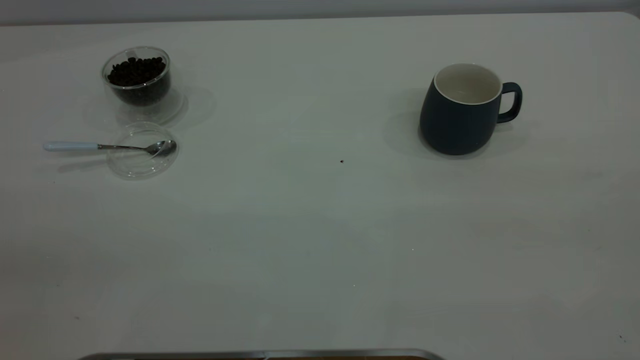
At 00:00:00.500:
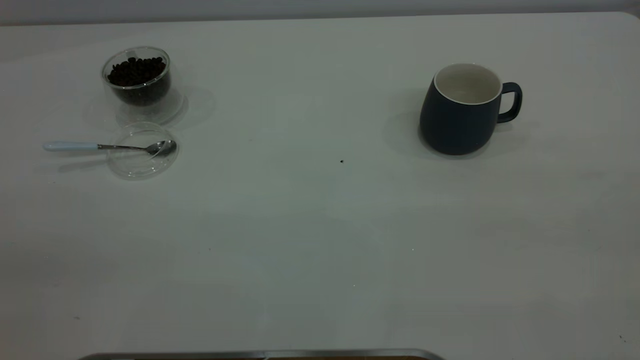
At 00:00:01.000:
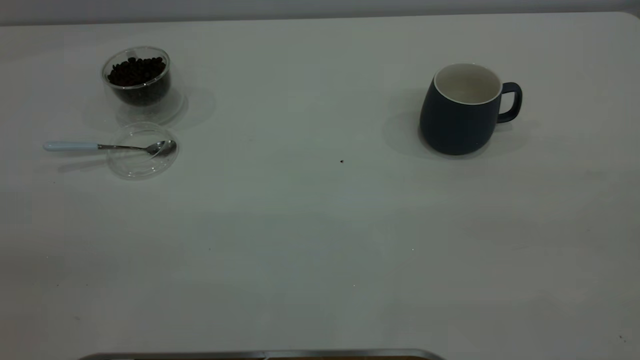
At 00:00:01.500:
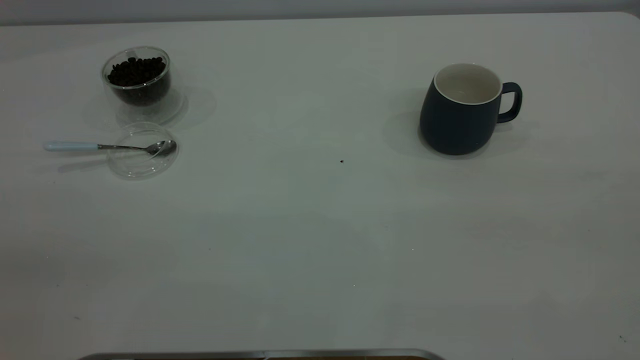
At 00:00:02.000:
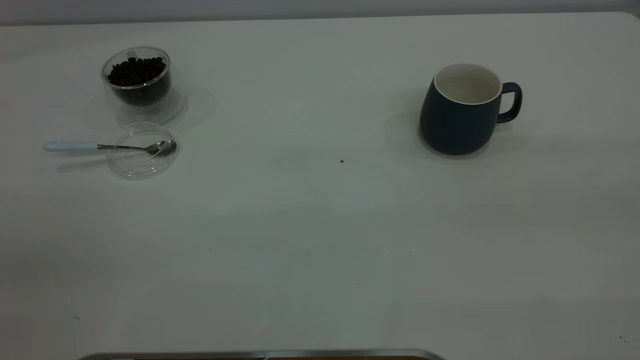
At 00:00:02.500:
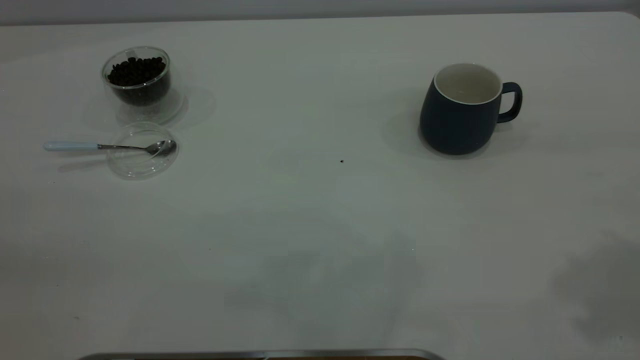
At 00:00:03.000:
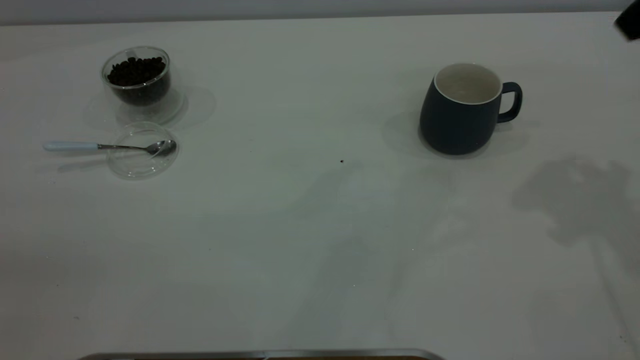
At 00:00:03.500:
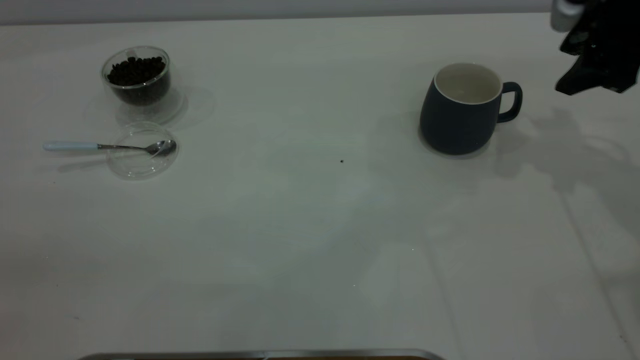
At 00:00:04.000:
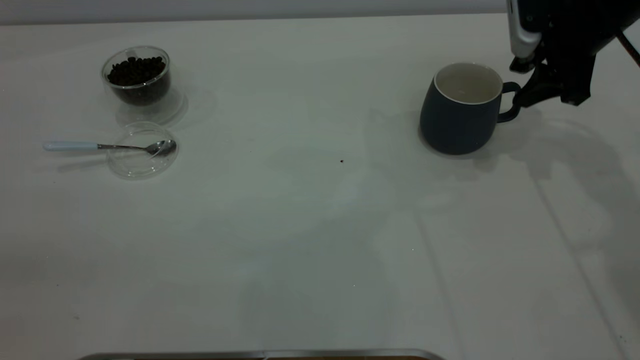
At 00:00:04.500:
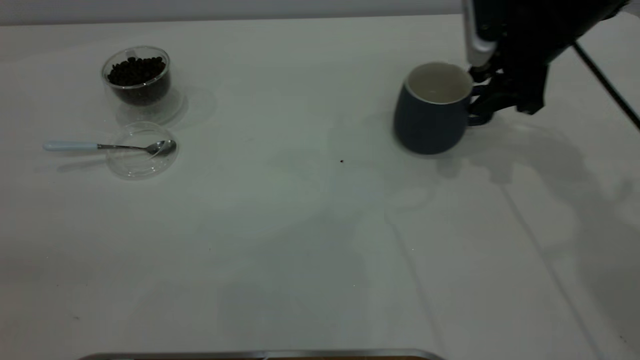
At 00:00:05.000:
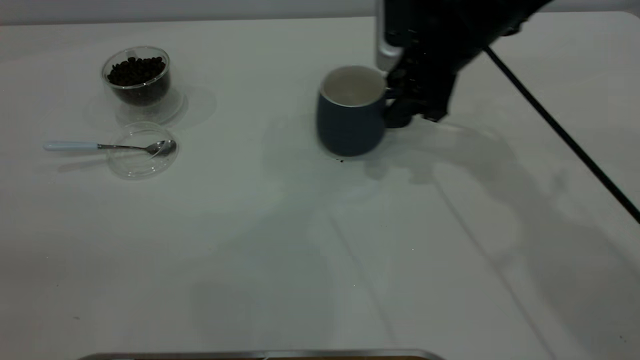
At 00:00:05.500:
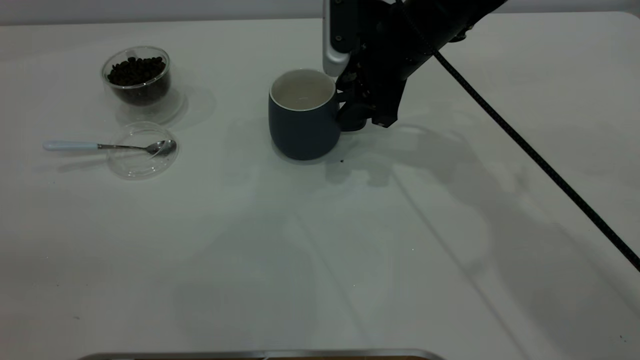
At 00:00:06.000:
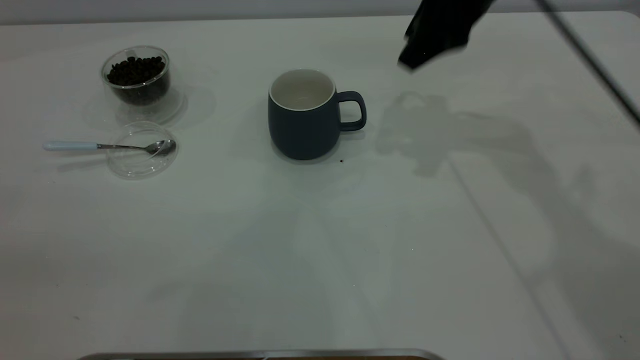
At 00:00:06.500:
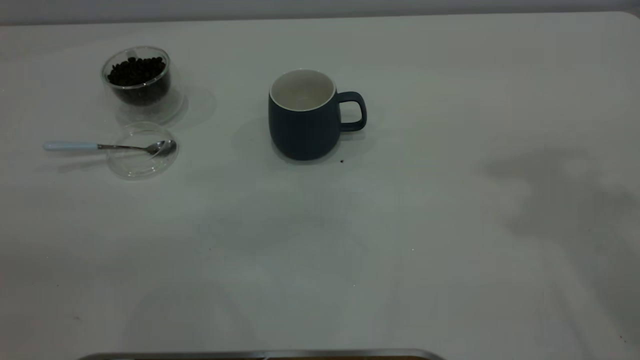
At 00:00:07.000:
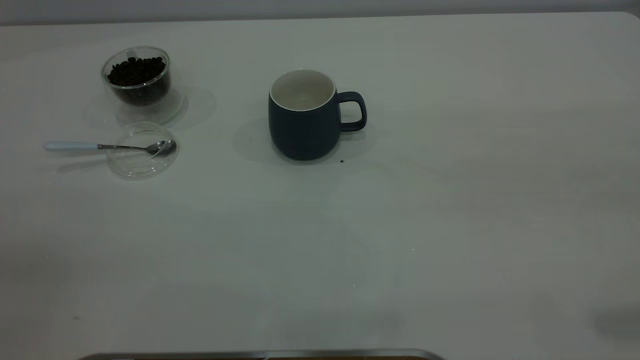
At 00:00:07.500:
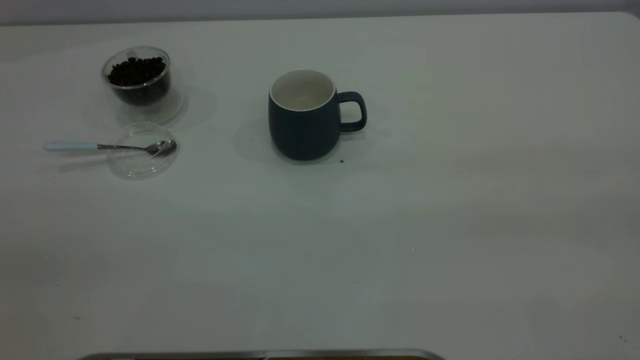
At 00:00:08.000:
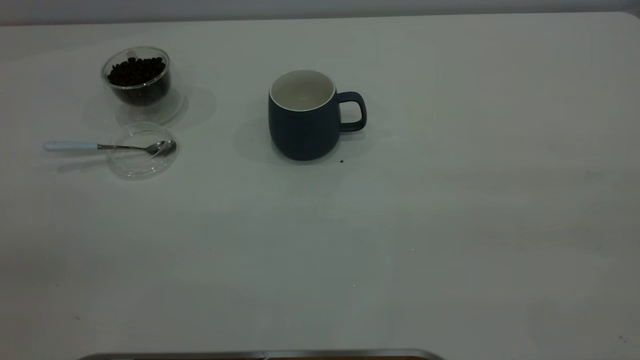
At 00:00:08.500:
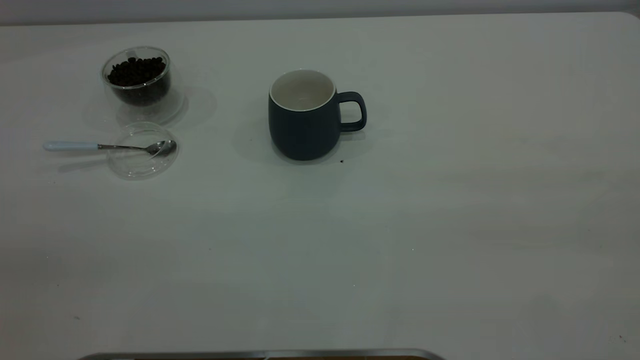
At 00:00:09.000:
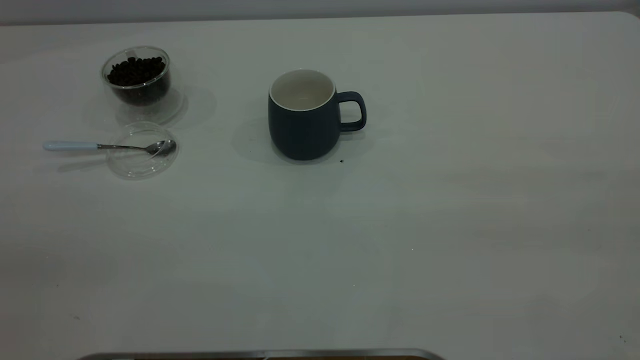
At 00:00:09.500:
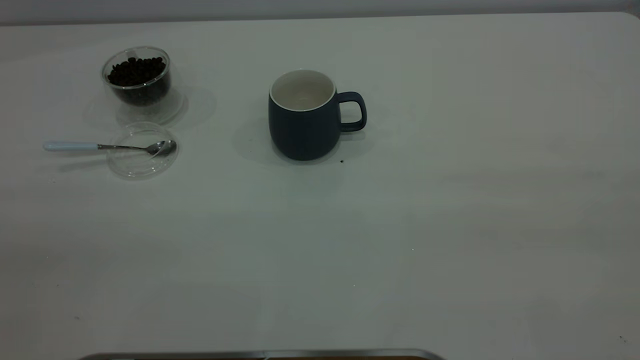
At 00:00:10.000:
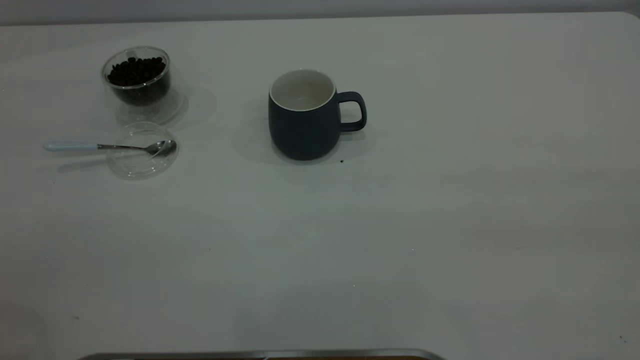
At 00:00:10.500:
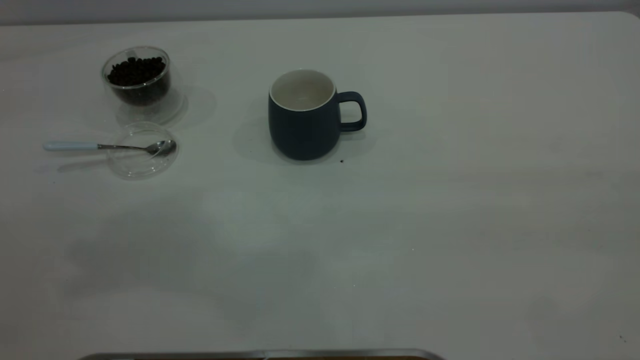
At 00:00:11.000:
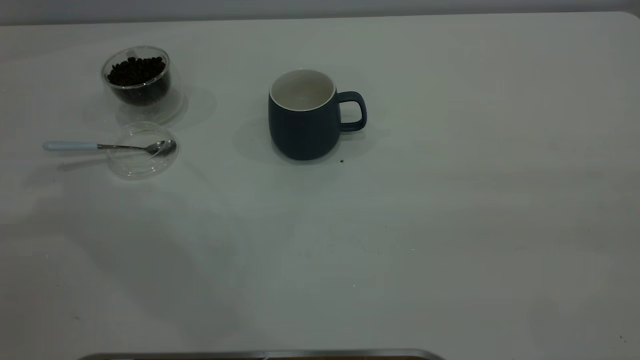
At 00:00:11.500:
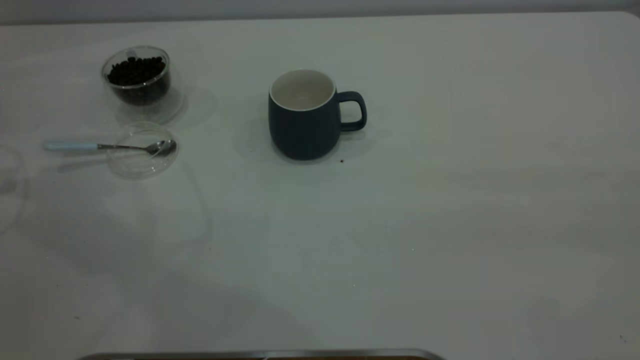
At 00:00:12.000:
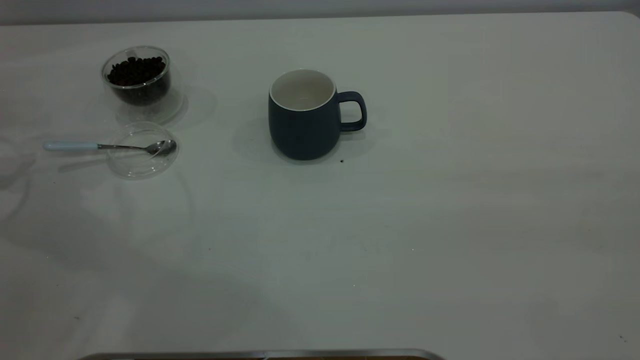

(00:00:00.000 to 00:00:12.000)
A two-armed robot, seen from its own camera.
Task of the whole recording: the right gripper place the grey cup in the center of the table, the left gripper take the blue spoon from the cup lid and scoop out the coffee beans from the coffee cup and put them into the grey cup, the left gripper put the spoon back into the cup lid.
Step, 00:00:00.000 - 00:00:06.000: Move the cup to the center of view.
00:00:02.000 - 00:00:04.000: The right gripper heads forward and downward, covering about 50 cm, and closes its fingers.
00:00:04.000 - 00:00:06.000: The right gripper heads to the left and upward, covering about 15 cm.
00:00:06.000 - 00:00:08.000: The right gripper moves backward, some 40 cm.

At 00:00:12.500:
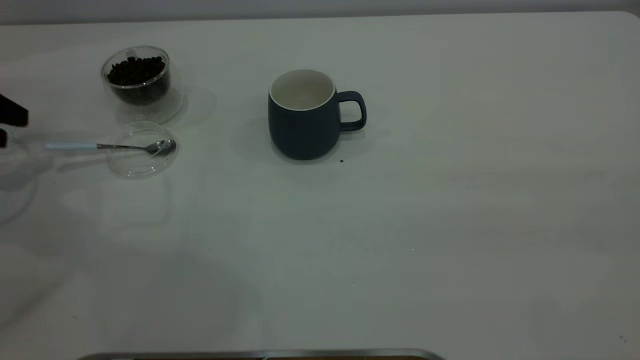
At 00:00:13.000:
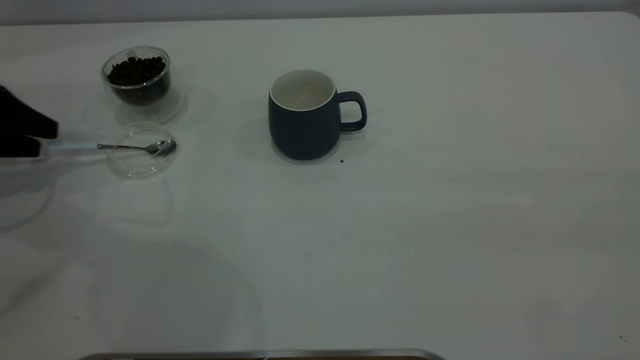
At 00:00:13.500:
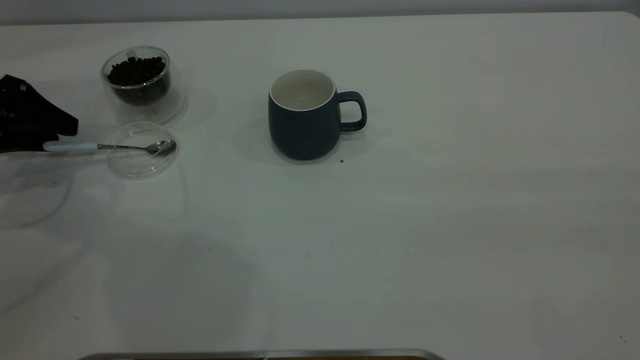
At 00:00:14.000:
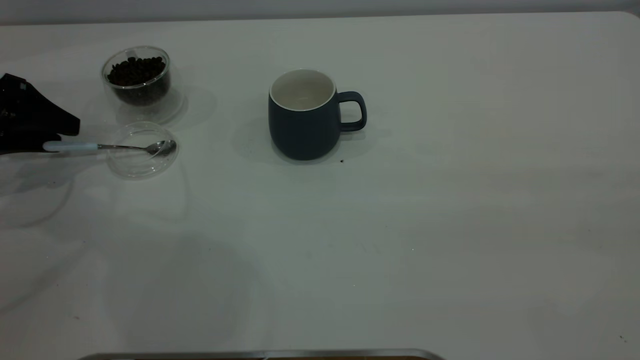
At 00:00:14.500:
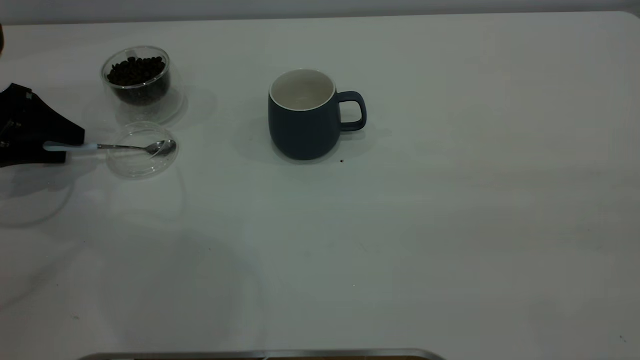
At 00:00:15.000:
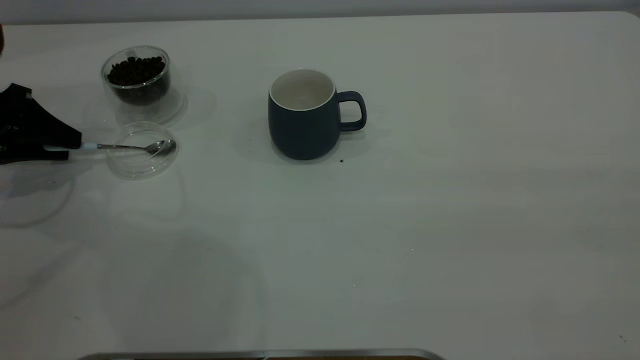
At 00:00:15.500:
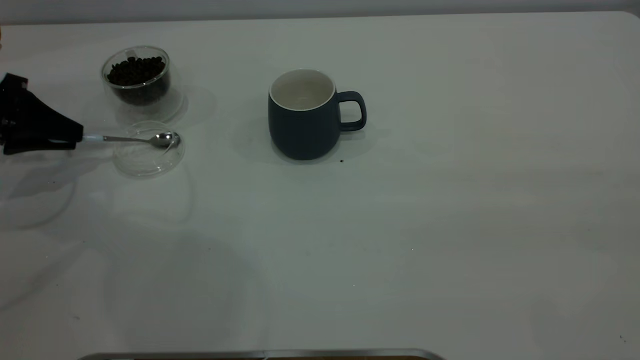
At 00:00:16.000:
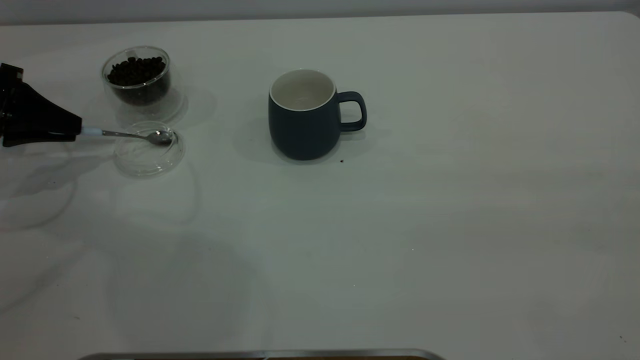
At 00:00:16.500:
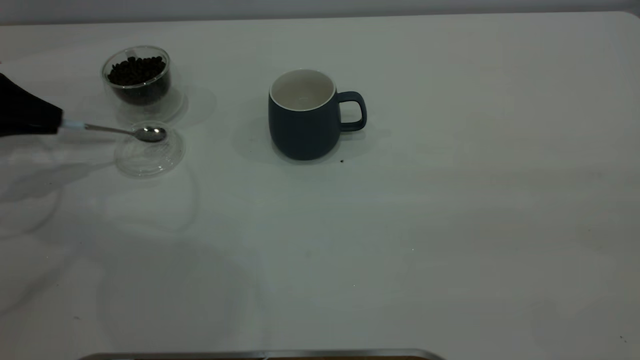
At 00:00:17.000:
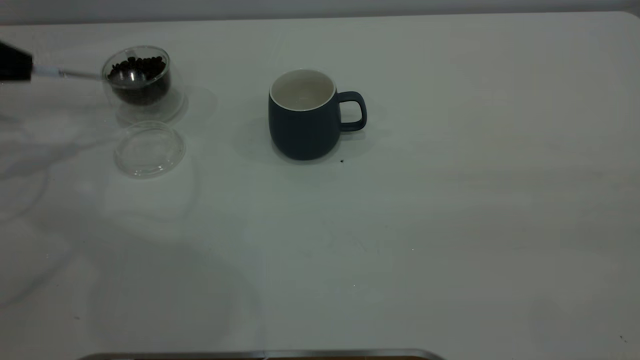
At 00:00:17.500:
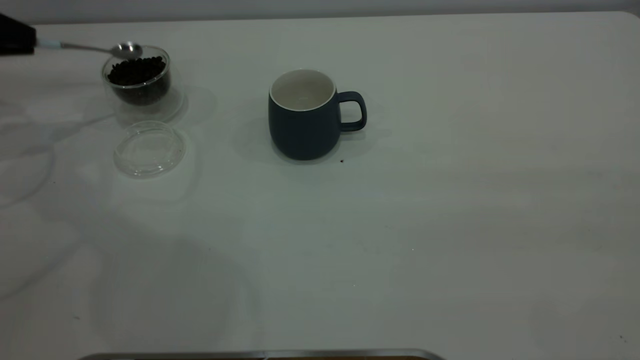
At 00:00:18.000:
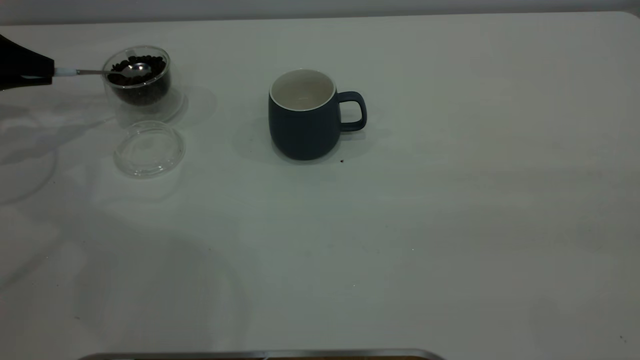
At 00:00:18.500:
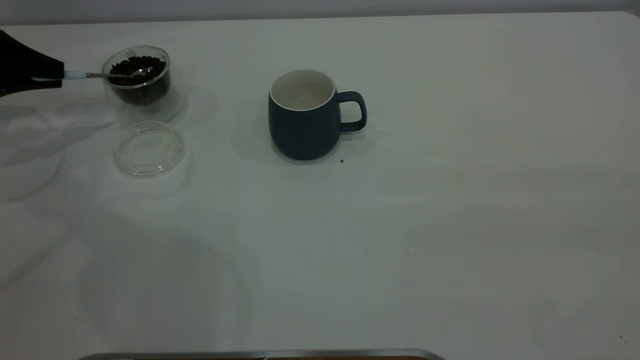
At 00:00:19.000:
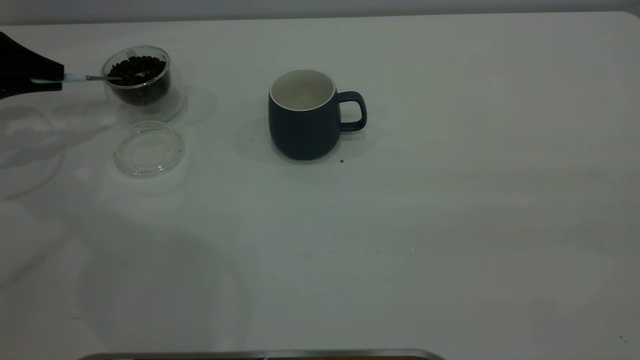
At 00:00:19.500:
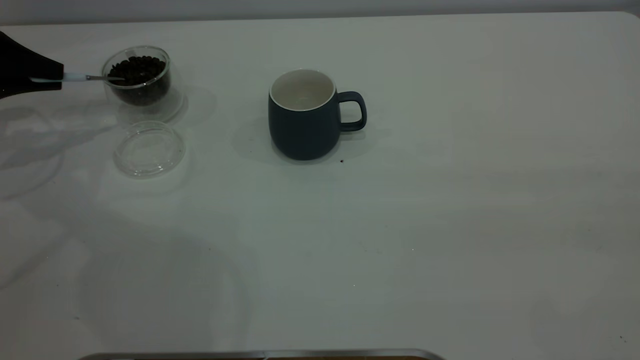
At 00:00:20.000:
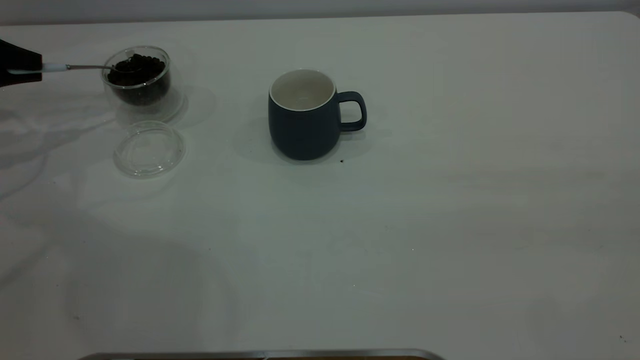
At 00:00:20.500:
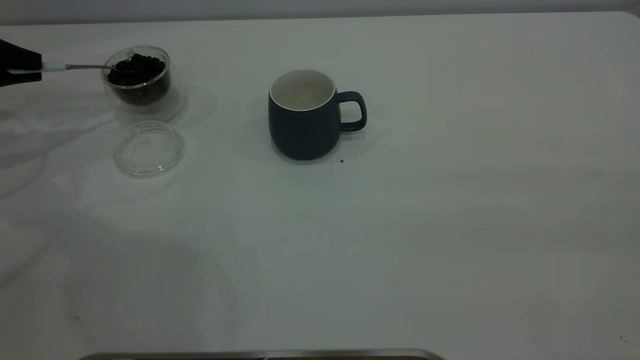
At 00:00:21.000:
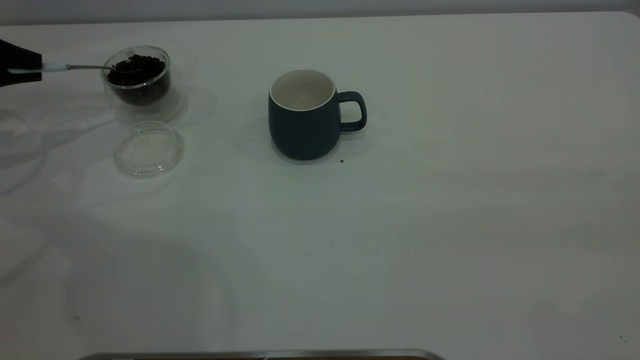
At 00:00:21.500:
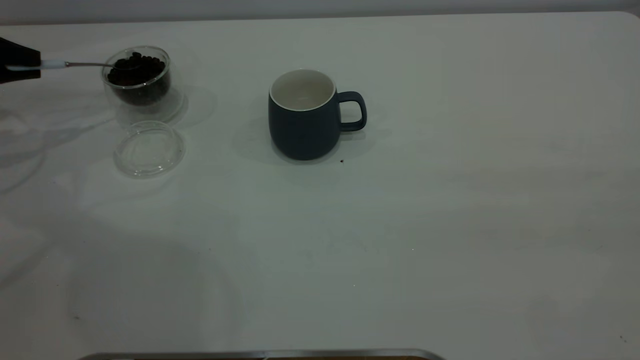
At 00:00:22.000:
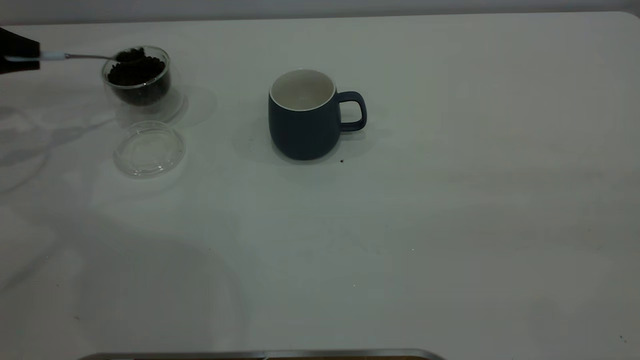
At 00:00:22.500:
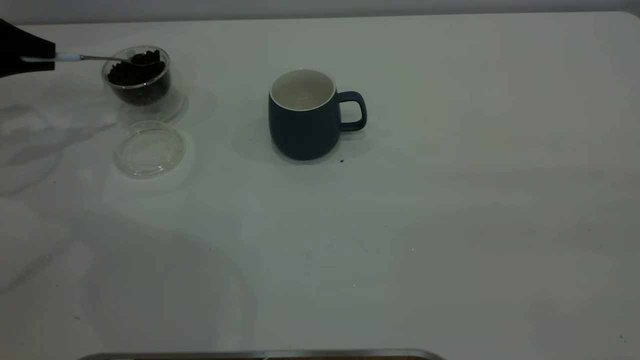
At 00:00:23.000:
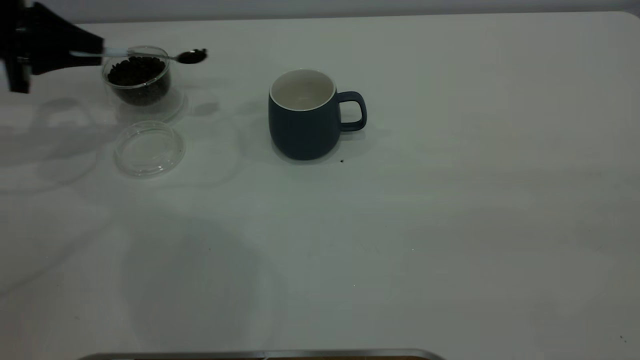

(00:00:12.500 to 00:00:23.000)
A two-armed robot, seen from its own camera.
Task of the whole recording: the right gripper place the grey cup in the center of the table, the left gripper take the blue spoon from the cup lid and scoop out the coffee beans from the coffee cup and put them into the grey cup, the left gripper put the spoon back into the cup lid.
Step, 00:00:12.500 - 00:00:17.000: Pick up the spoon.
00:00:12.500 - 00:00:14.500: The left gripper ends up about 5 cm from where it was.
00:00:14.500 - 00:00:16.500: The left gripper closes its fingers.
00:00:16.500 - 00:00:19.000: The left gripper heads forward, covering about 5 cm.
00:00:21.000 - 00:00:23.000: The left gripper is displaced to the right by some 10 cm.
